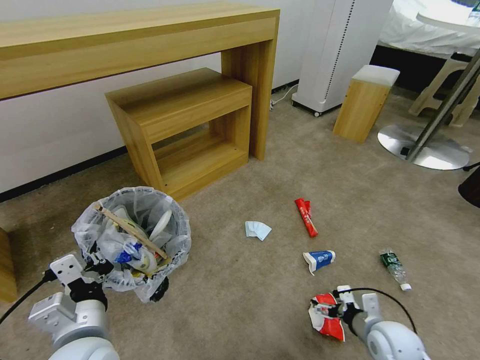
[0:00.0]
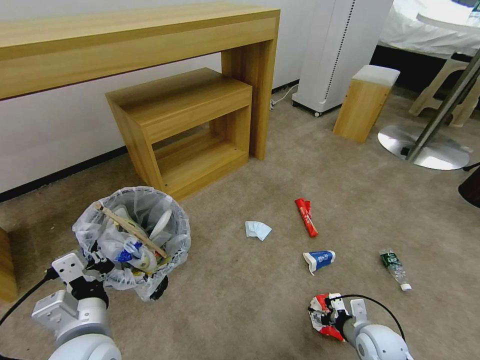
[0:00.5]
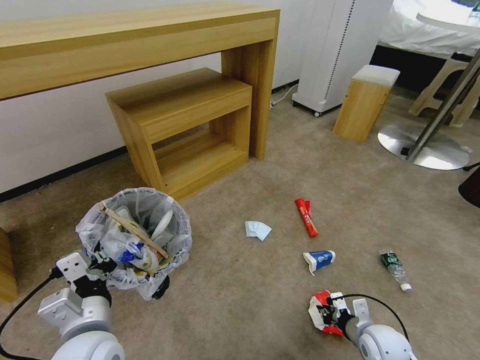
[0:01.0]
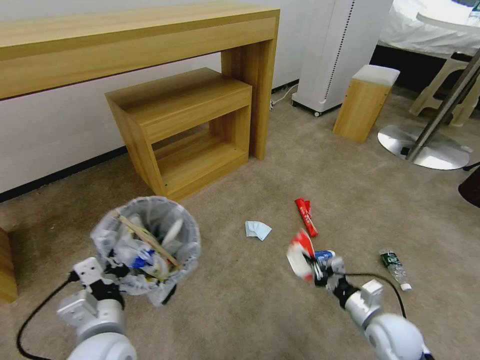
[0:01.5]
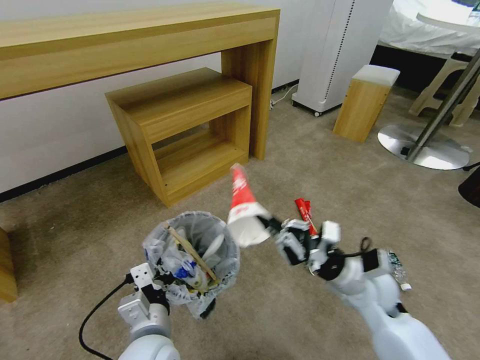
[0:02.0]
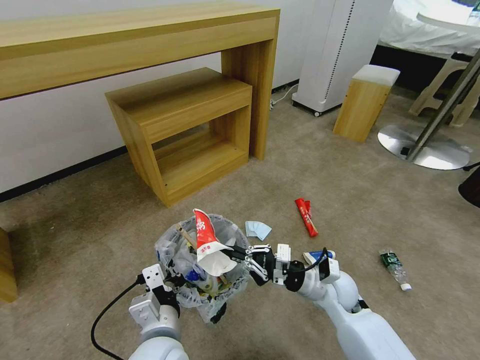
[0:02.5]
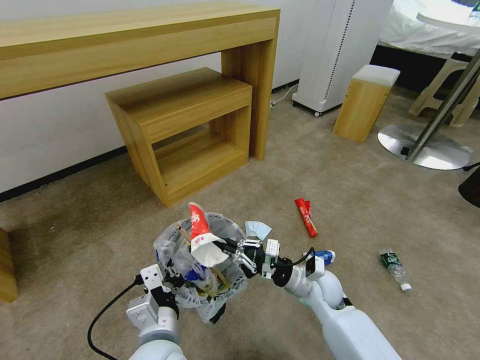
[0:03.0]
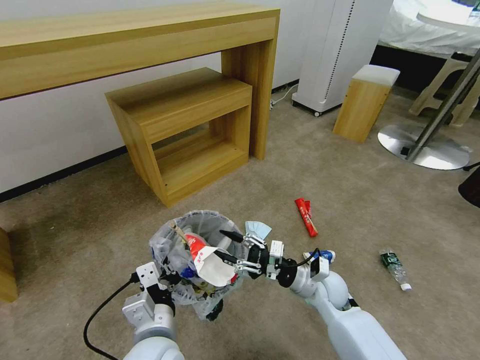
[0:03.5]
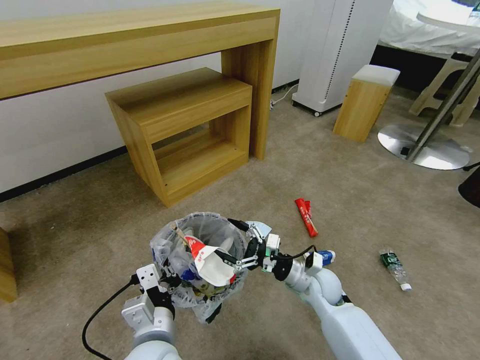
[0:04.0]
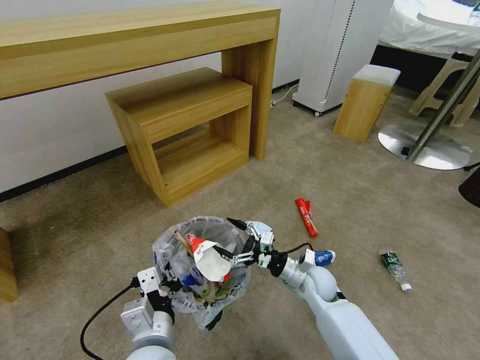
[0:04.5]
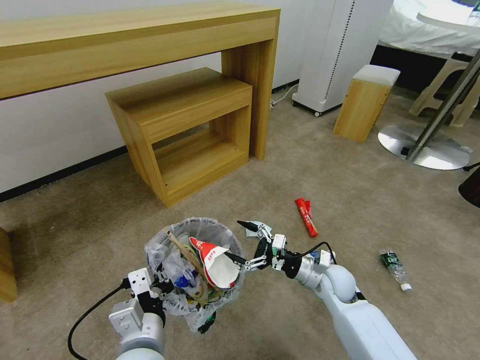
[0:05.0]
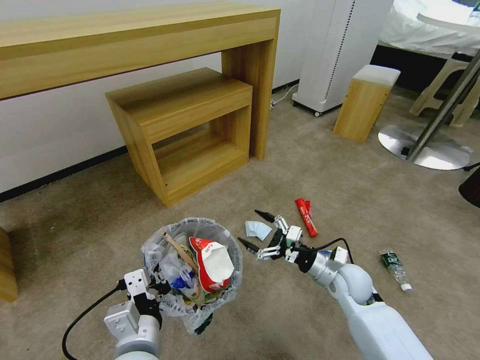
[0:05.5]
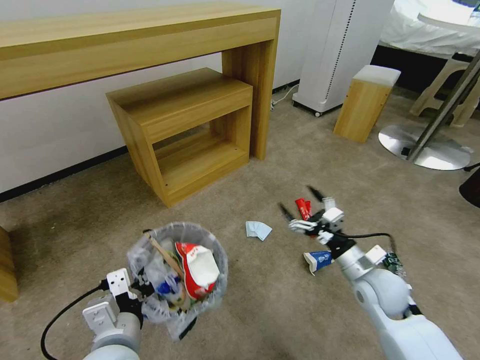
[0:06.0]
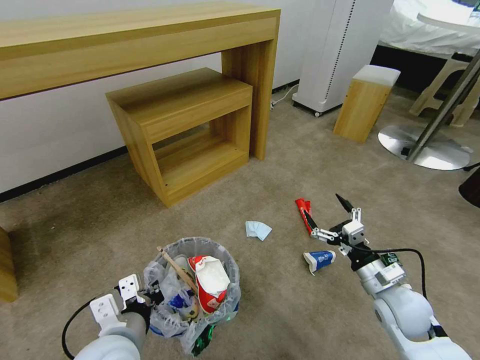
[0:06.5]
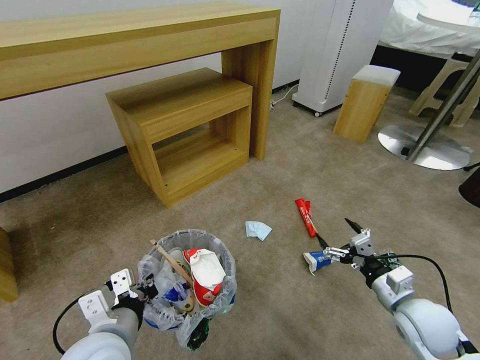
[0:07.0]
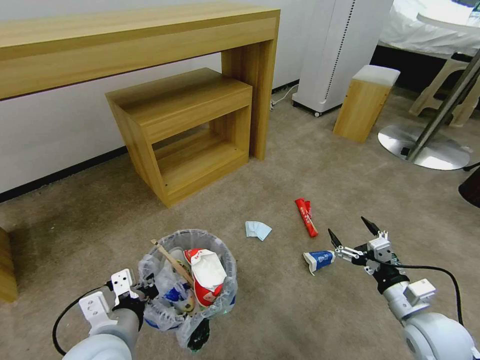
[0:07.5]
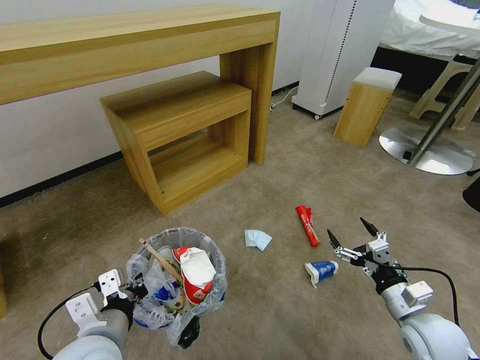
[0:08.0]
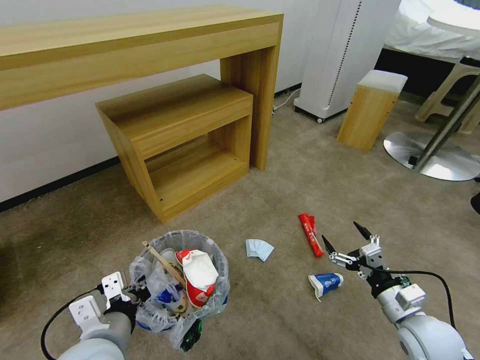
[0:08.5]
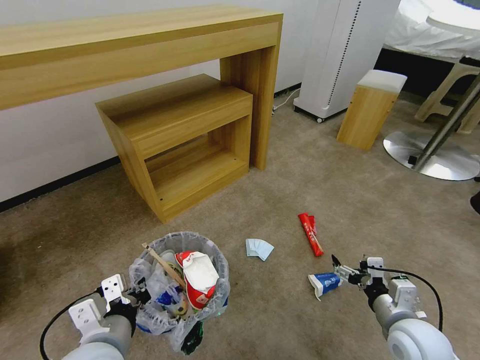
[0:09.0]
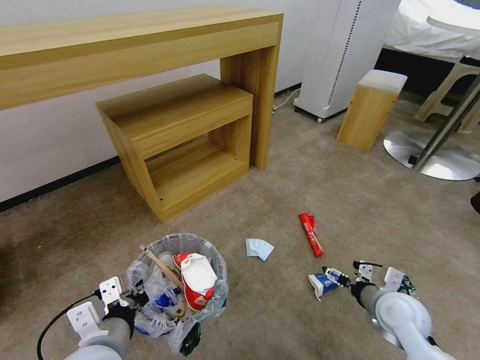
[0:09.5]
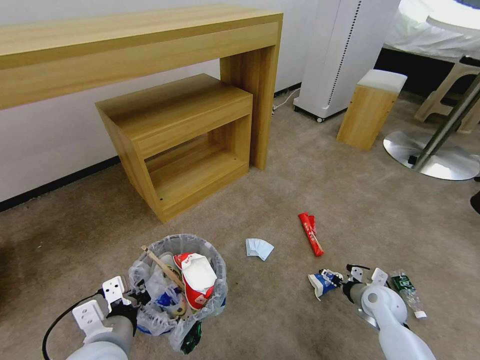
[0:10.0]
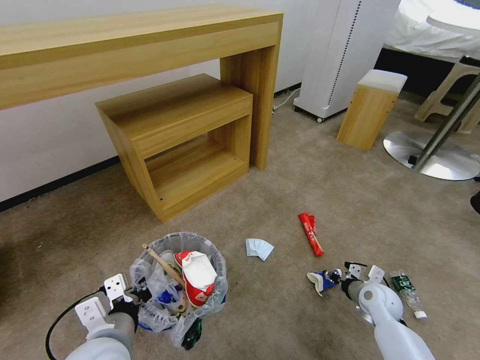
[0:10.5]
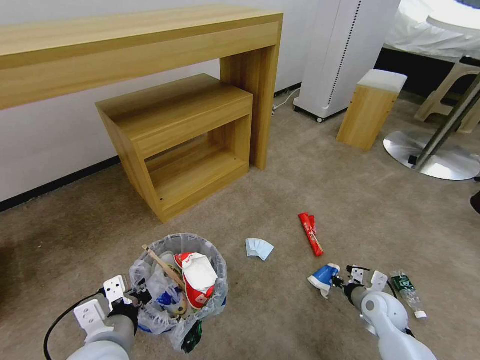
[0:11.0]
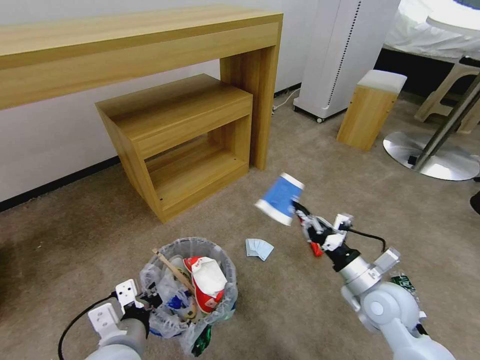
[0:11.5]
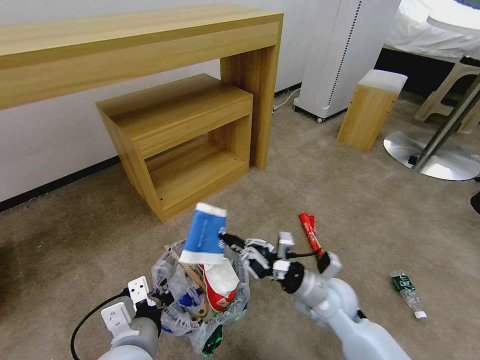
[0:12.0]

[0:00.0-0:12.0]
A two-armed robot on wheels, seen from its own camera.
Task of the whole recording: Pick up the trash bin and place the garbage on the floor into it.
0:00.0 to 0:02.0: The left gripper goes roughly 10 cm to the right and downward. The right gripper goes about 15 cm upward, forward and to the left, and closes up.
0:02.0 to 0:04.0: The right gripper moves downward, to the left and forward, some 15 cm, and opens.
0:04.0 to 0:06.0: The left gripper travels to the left by approximately 5 cm. Meanwhile the right gripper moves to the right and upward, approximately 15 cm.
0:06.0 to 0:08.0: The right gripper moves backward and to the right, roughly 10 cm.
0:08.0 to 0:10.0: The right gripper moves downward and forward, about 15 cm.
0:10.0 to 0:12.0: The right gripper heads to the left and upward, covering roughly 20 cm, and closes.

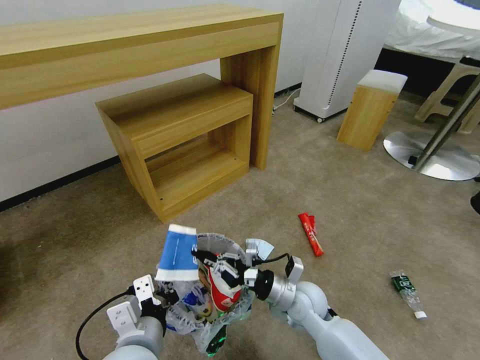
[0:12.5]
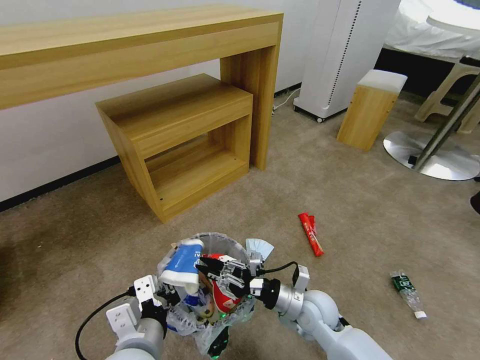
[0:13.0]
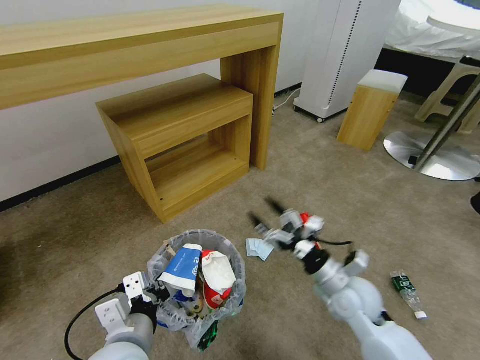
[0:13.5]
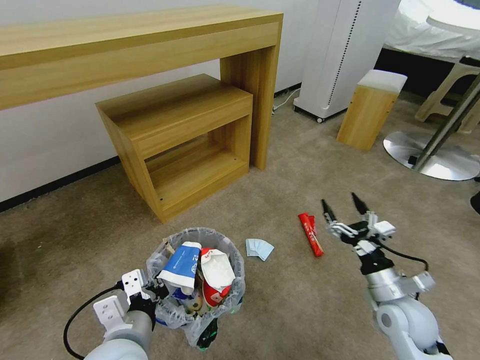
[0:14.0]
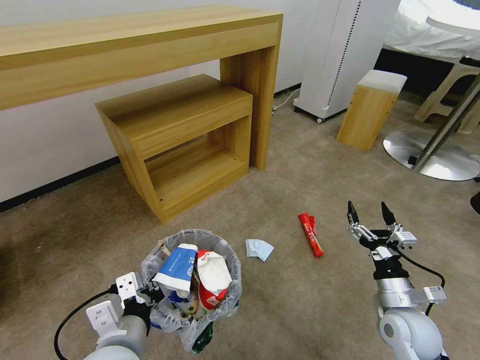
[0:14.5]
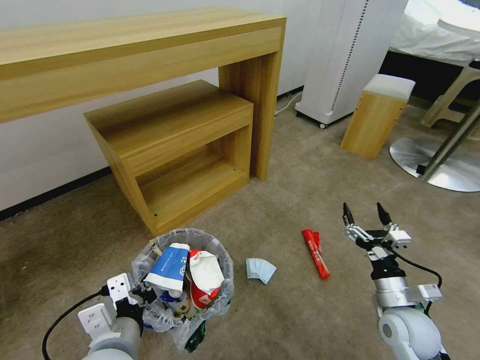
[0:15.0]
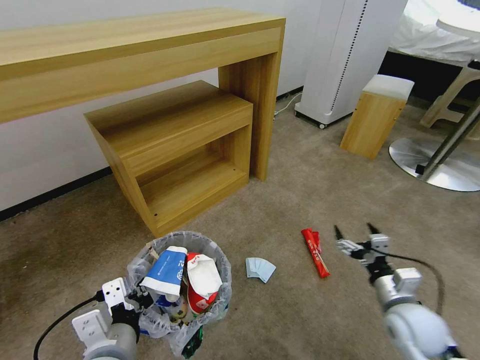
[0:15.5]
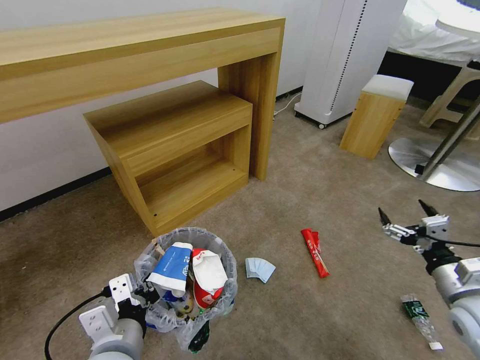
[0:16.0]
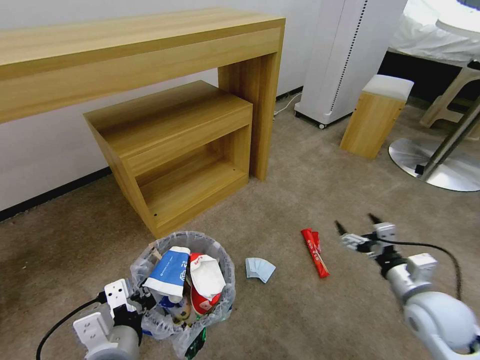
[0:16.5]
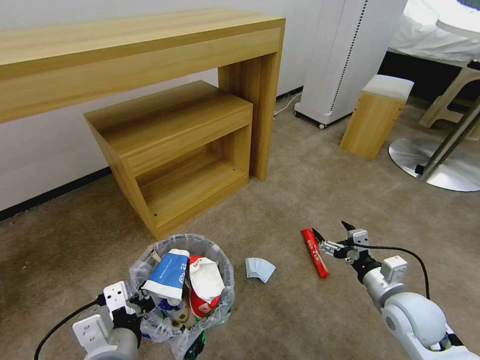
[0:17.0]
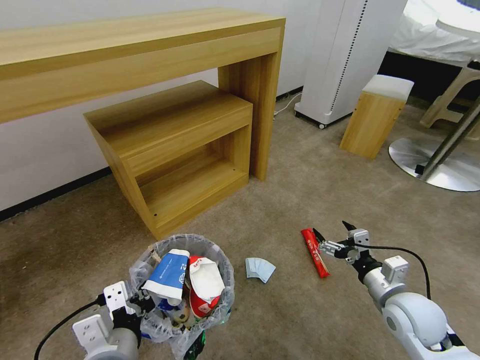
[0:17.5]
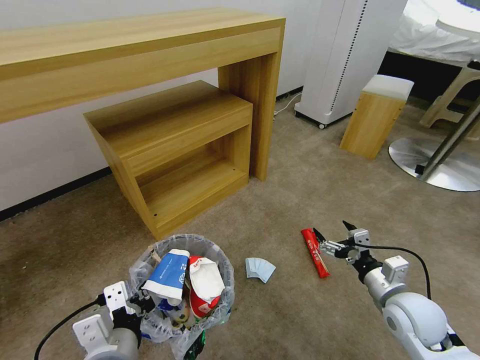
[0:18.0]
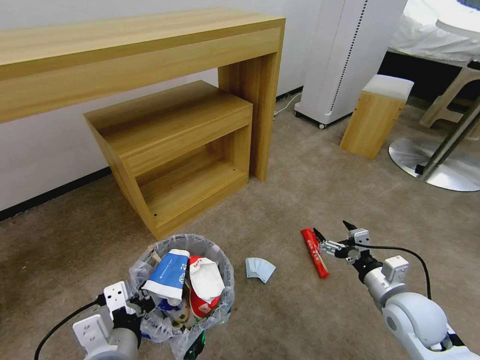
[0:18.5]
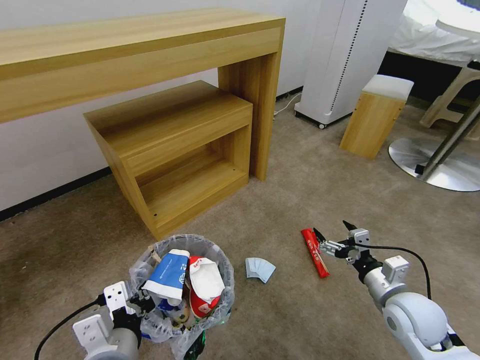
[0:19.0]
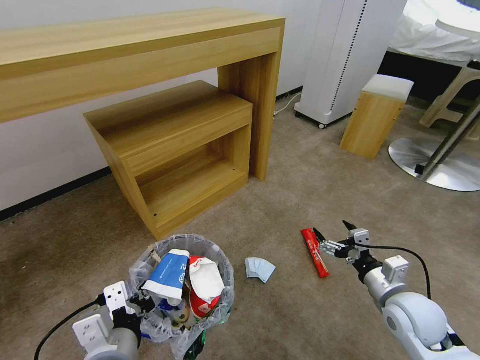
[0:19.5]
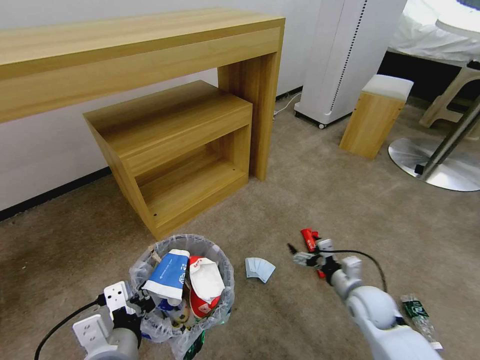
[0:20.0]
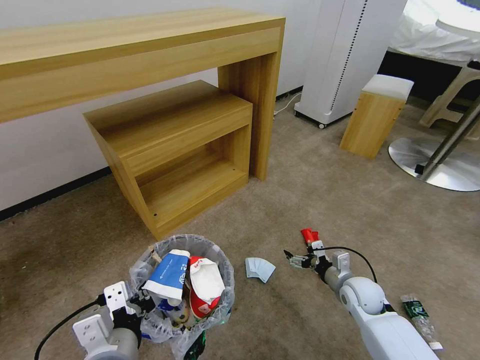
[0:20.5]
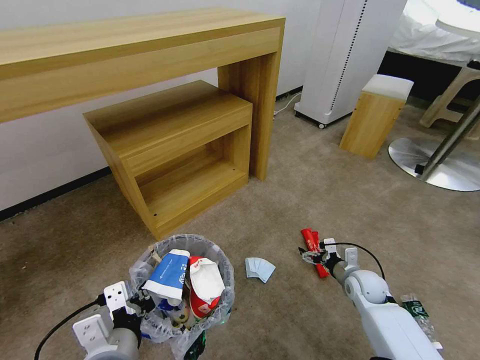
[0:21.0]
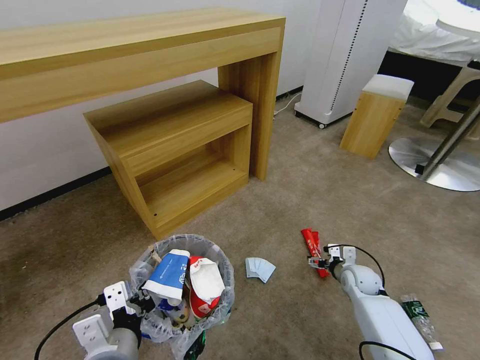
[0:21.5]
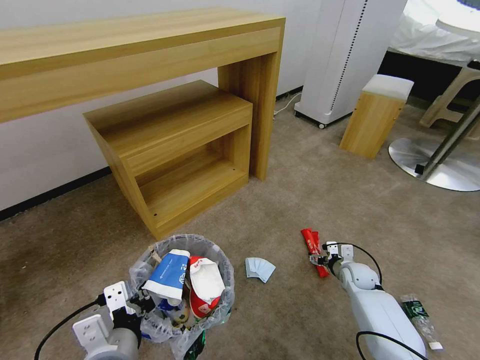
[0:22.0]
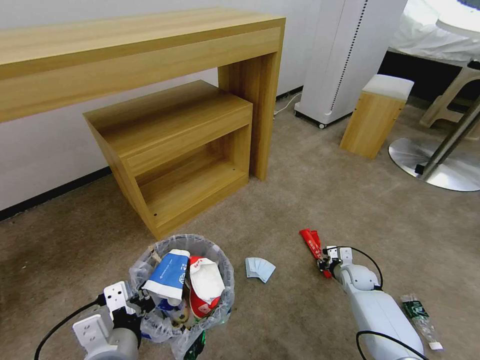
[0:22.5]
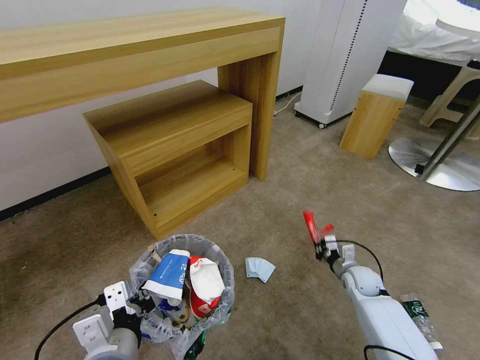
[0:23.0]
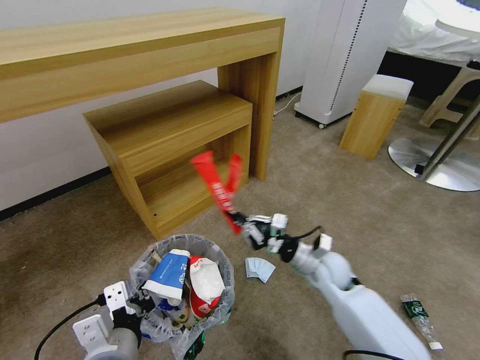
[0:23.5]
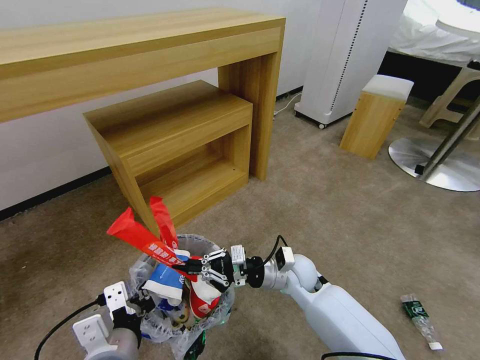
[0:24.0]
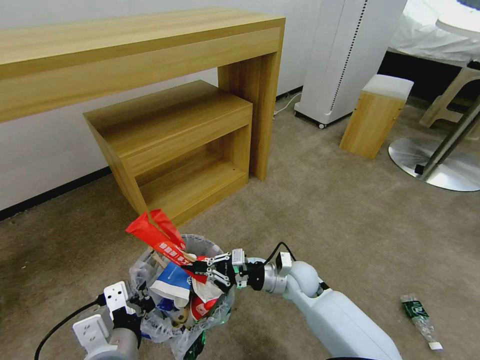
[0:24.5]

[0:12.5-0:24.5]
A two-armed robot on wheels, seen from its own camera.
Task of the whole recording: Pick up the trash bin and place the garbage on the floor into it.
0:12.5 to 0:14.5: The right gripper shifts some 20 cm to the right, and opens its fingers.
0:14.5 to 0:16.5: The right gripper moves upward, approximately 5 cm.
0:16.5 to 0:18.5: The grippers stay close to where they were, moving slightly.
0:18.5 to 0:20.5: The right gripper goes some 15 cm downward and forward.
0:20.5 to 0:22.5: The right gripper moves downward, forward and to the right, approximately 10 cm, and closes its fingers.
0:22.5 to 0:24.5: The right gripper moves to the left and upward, approximately 25 cm.

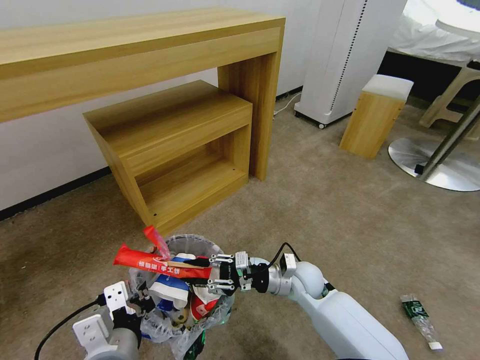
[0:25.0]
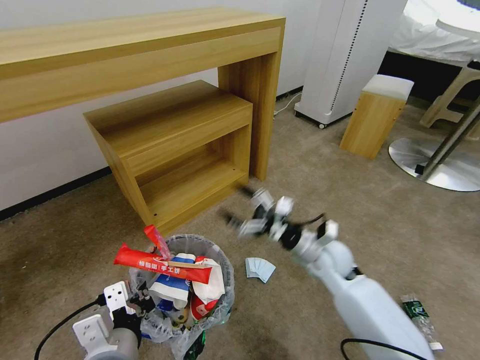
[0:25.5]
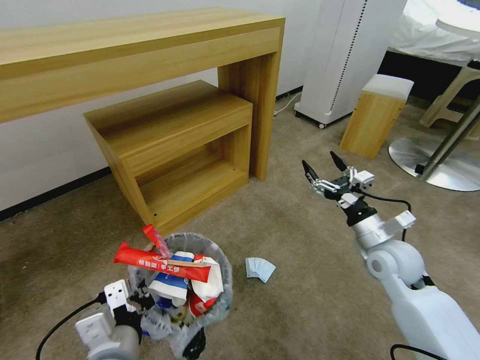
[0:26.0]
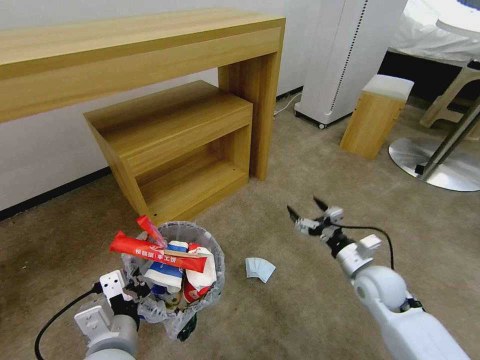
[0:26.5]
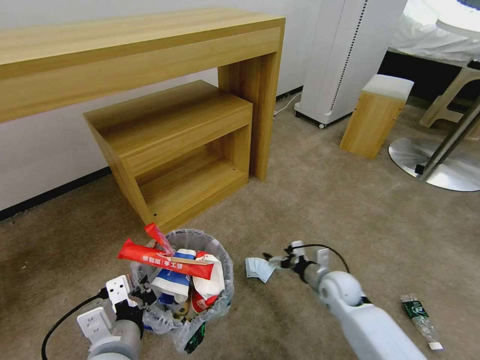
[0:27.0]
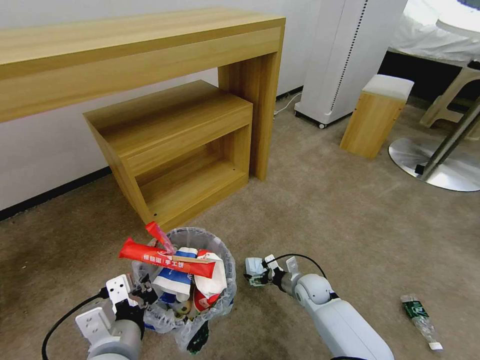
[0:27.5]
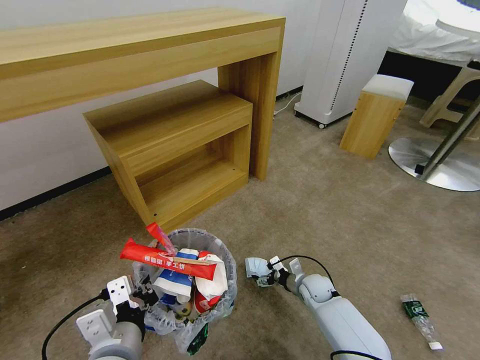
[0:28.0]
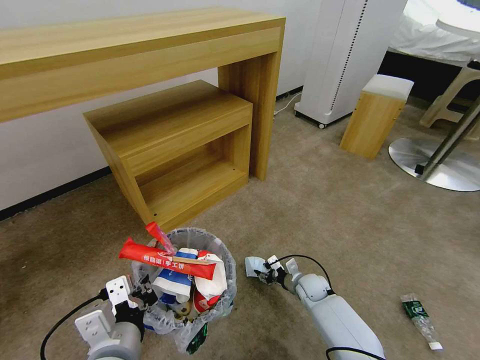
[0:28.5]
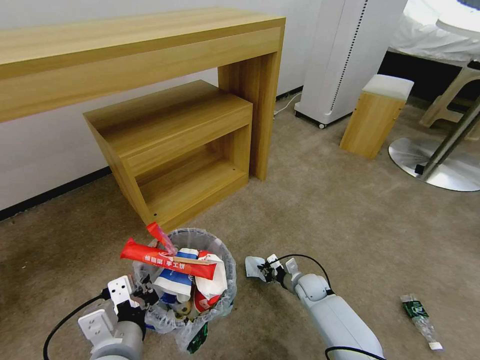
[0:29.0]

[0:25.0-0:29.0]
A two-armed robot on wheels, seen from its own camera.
Task of the whole recording: Pick up the trash bin and place the garbage on the floor into it.
0:25.0 to 0:27.0: The right gripper heads to the right, covering roughly 10 cm, and opens its fingers.
0:27.0 to 0:29.0: The right gripper moves downward, about 10 cm, and closes up.
